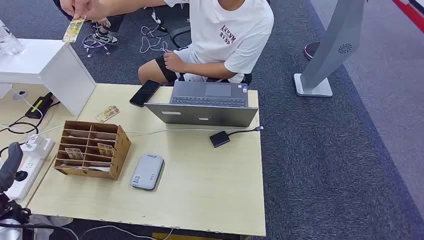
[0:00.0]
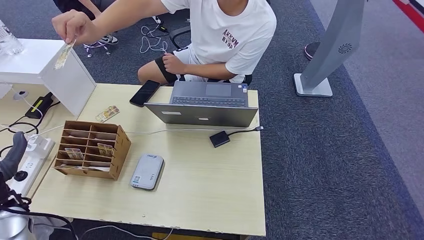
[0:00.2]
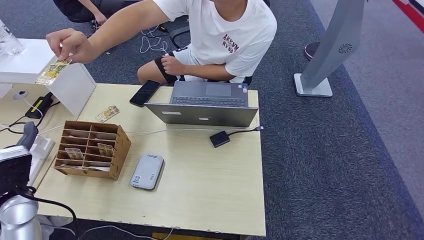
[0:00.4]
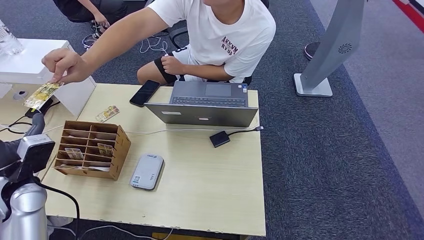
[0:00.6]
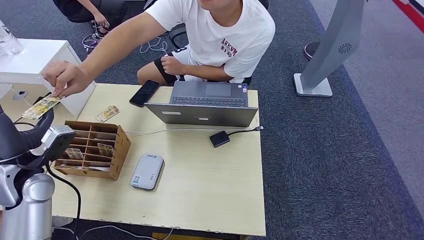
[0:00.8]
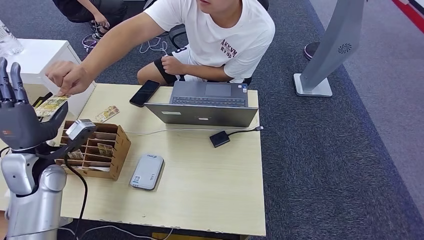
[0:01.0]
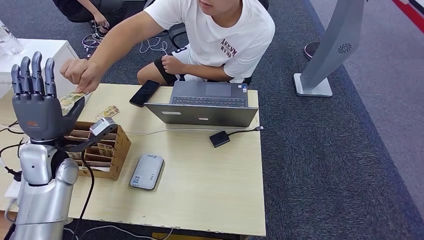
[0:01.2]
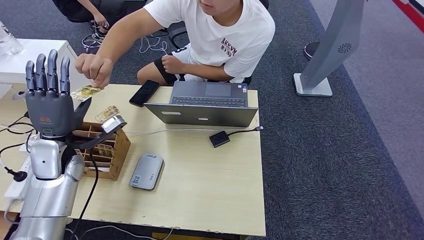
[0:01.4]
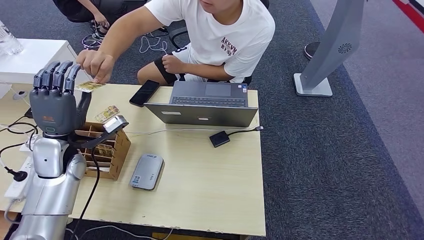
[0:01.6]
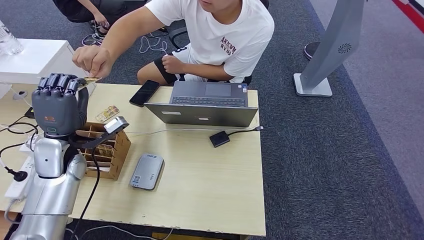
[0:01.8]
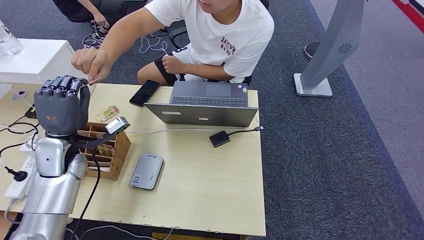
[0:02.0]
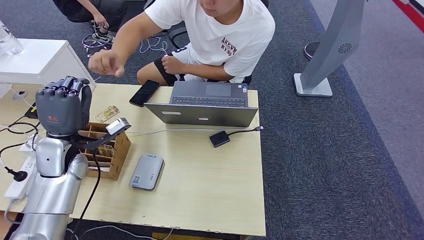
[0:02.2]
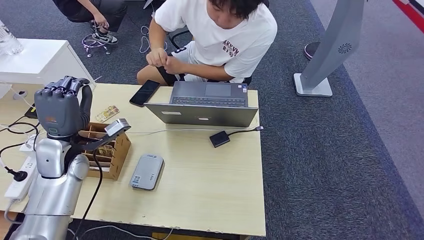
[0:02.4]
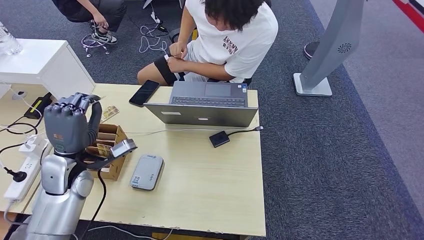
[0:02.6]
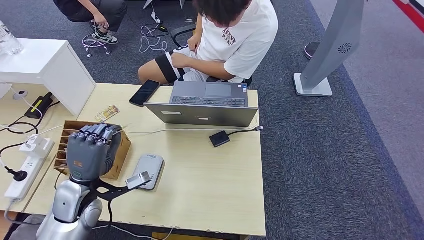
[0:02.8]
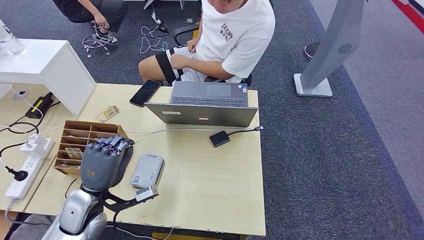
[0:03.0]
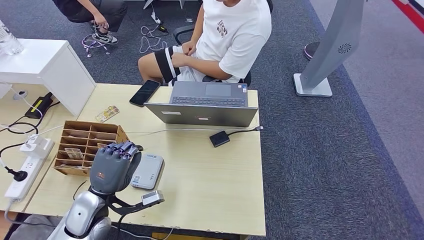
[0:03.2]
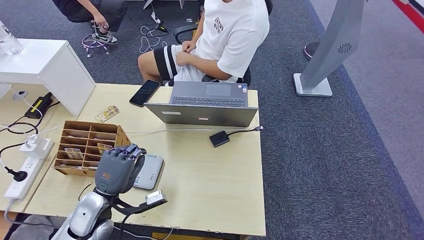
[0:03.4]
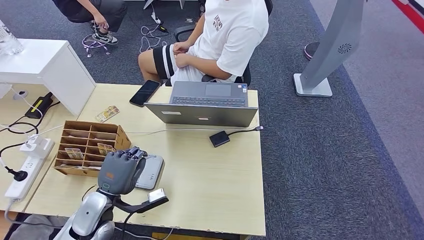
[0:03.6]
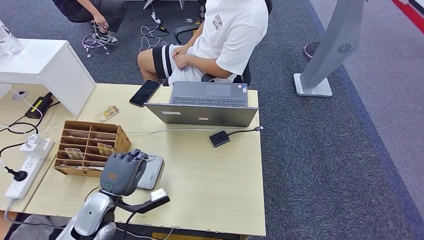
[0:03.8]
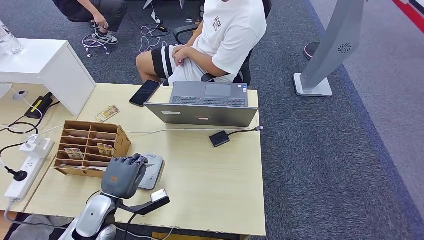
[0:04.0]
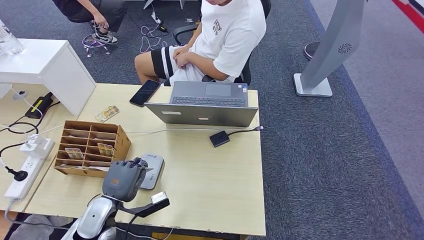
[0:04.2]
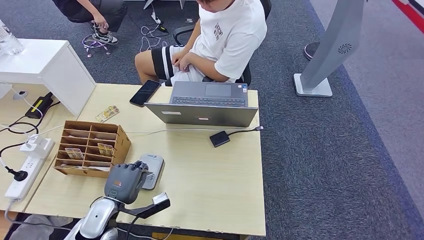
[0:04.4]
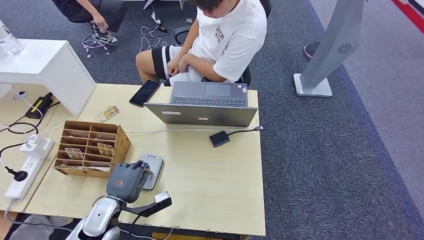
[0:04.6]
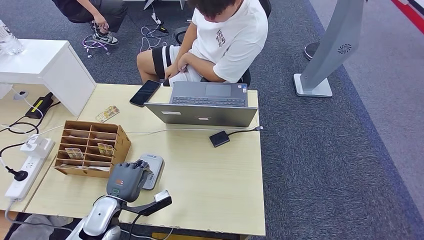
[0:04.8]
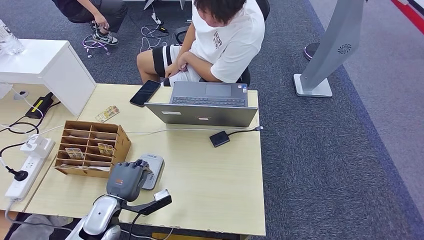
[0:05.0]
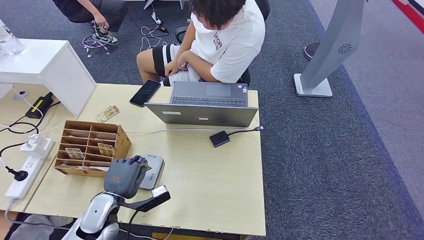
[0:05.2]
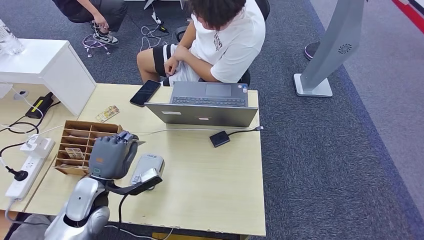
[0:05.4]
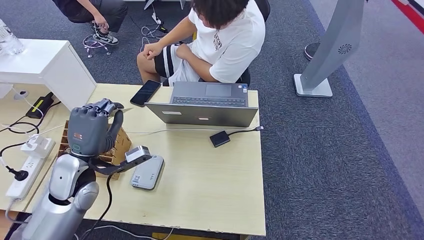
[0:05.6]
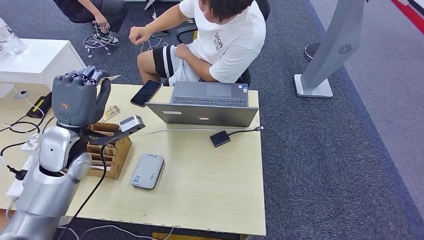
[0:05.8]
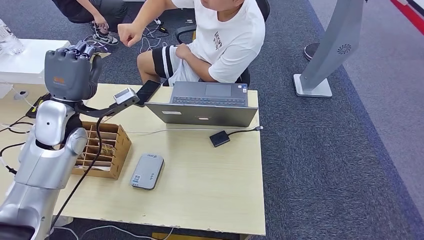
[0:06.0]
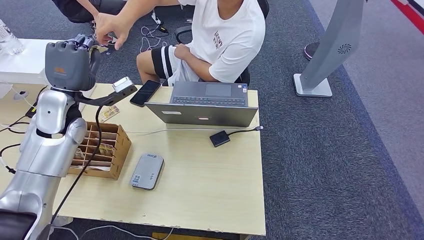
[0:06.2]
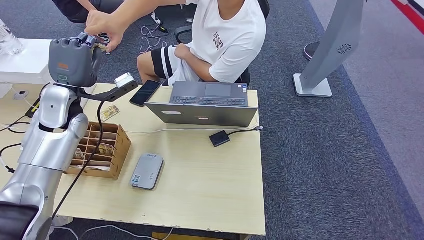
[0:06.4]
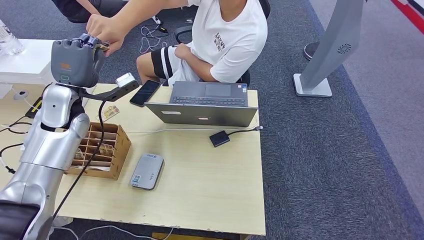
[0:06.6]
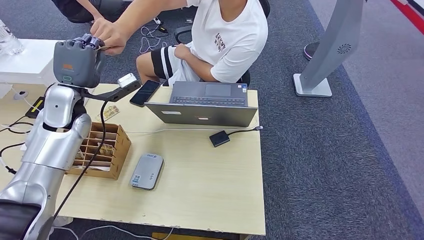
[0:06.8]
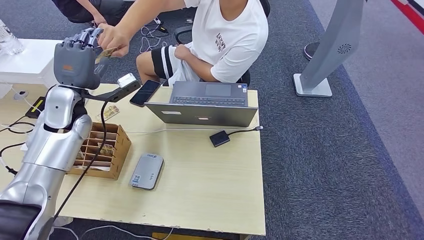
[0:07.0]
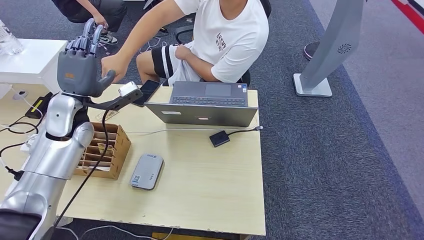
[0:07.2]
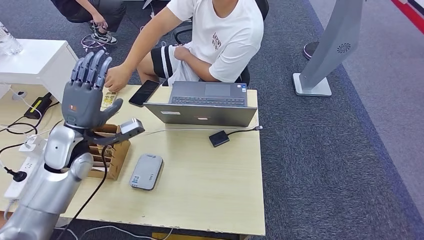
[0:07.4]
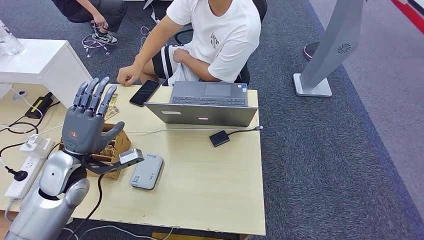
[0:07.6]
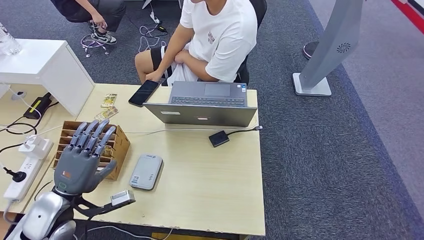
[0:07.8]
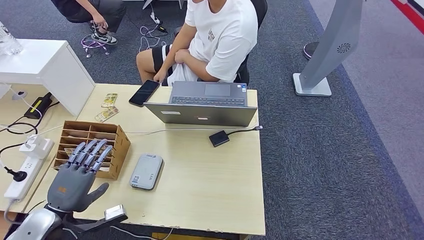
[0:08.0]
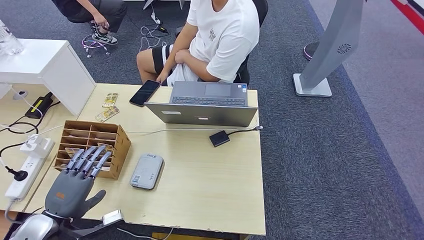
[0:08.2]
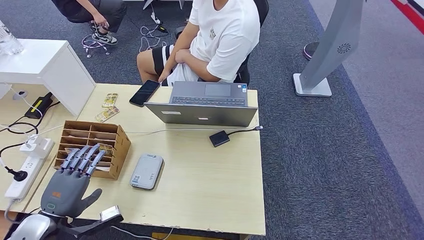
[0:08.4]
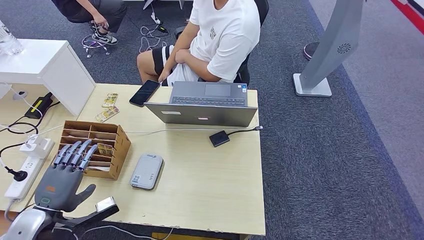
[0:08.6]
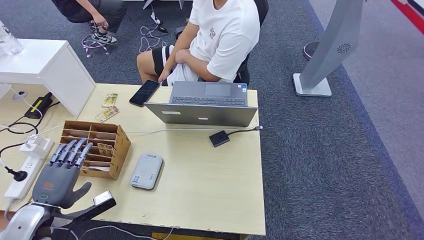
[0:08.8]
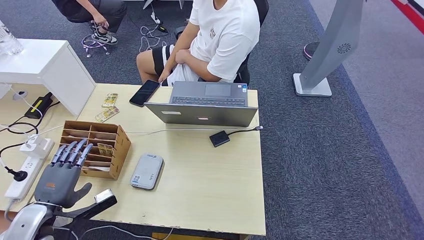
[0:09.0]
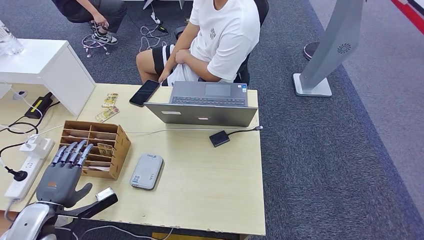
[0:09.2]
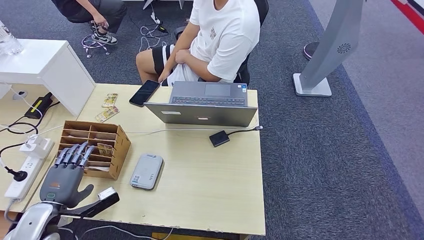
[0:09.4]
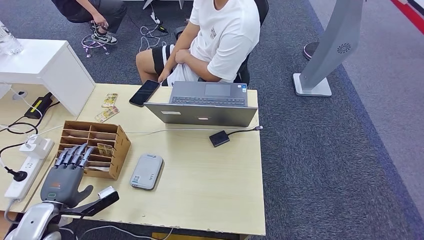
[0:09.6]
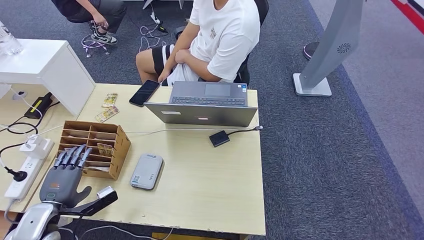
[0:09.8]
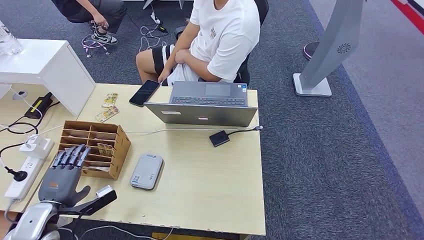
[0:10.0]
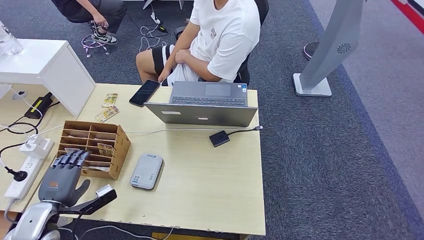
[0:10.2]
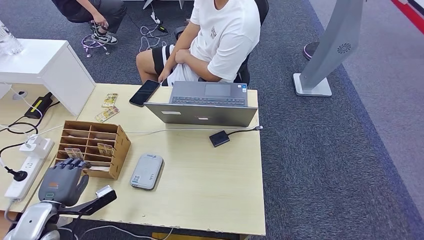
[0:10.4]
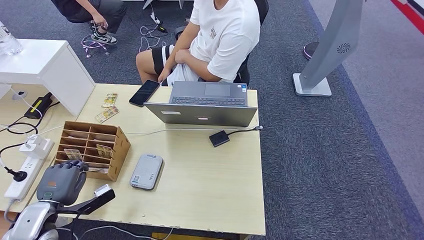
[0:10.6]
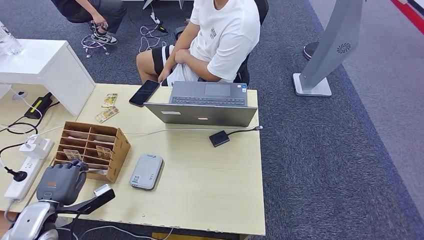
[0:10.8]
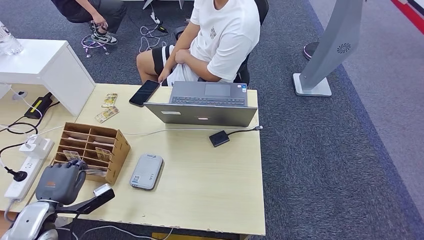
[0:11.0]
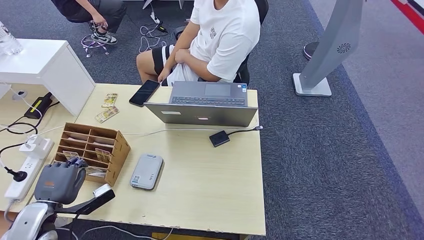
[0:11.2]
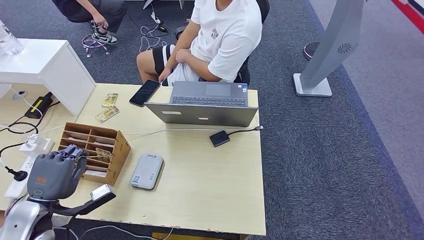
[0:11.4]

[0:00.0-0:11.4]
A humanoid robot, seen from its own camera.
Step, 0:00.0 to 0:03.0: Take the ID card from the person's hand.
Step, 0:03.2 to 0:05.0: Place the ID card on the card reader.
Step, 0:05.2 to 0:07.2: Hand the ID card to the person.
0:02.8 to 0:04.2: The left hand travels downward by approximately 10 cm.
0:04.2 to 0:05.6: The left hand goes about 15 cm upward and forward.
0:05.6 to 0:07.2: The left hand travels forward and upward by about 15 cm.
0:07.2 to 0:08.6: The left hand goes roughly 25 cm backward and downward.
0:08.6 to 0:10.0: The left hand moves approximately 5 cm.
0:10.0 to 0:11.4: The left hand goes approximately 5 cm upward.

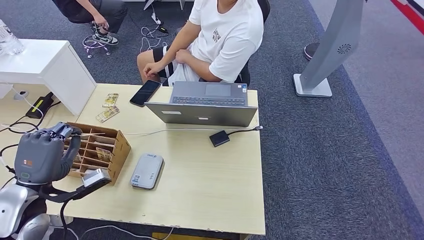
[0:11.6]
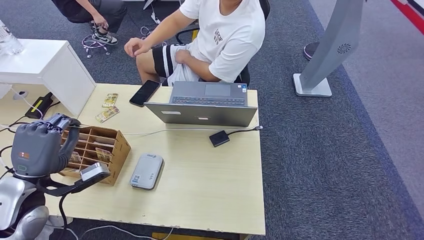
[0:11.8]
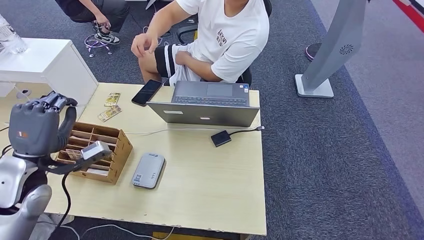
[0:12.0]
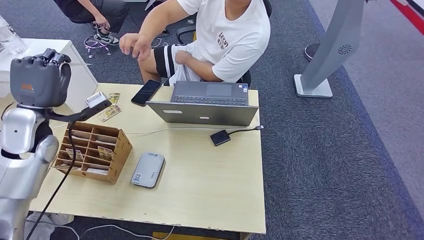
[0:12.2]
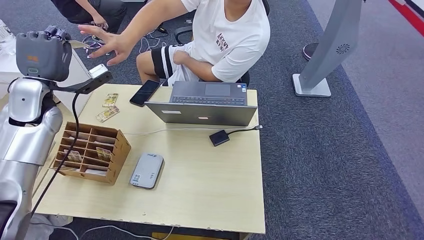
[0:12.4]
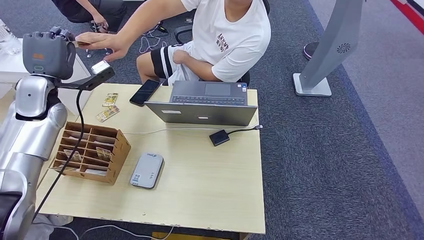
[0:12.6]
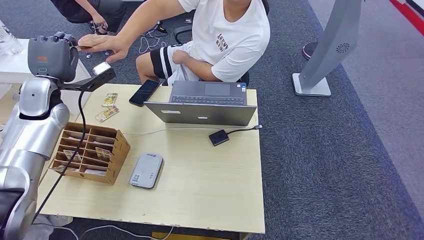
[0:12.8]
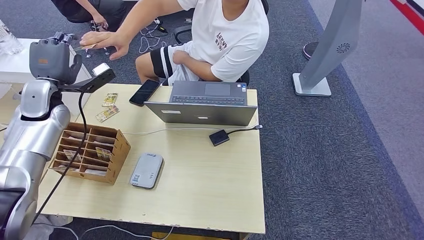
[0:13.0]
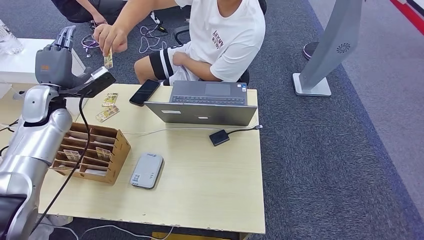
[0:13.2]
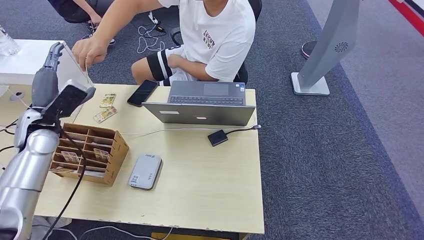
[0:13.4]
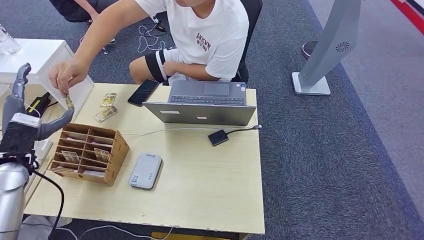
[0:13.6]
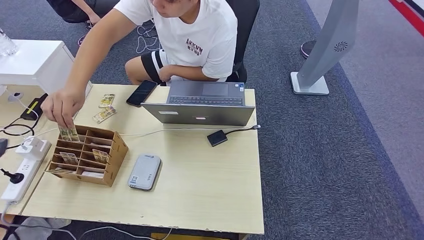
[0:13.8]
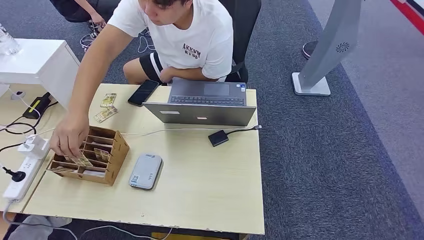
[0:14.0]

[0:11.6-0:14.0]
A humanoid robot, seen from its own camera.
Step, 0:11.6 to 0:13.8: Hand the room key to the person.

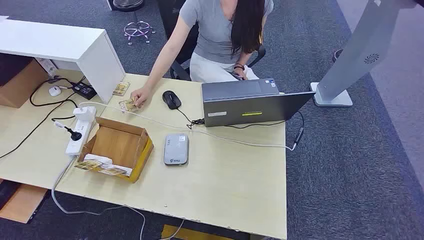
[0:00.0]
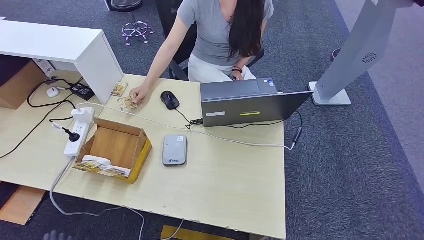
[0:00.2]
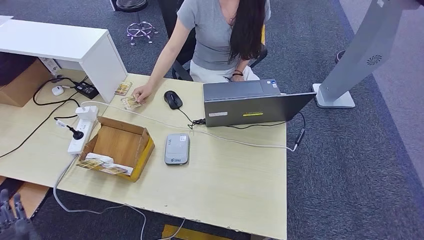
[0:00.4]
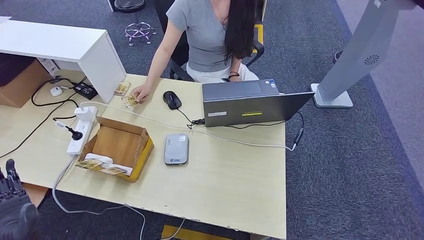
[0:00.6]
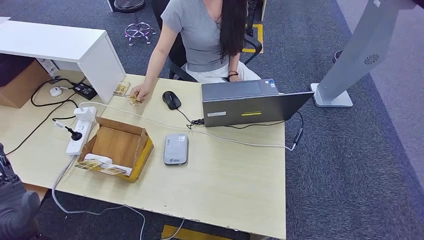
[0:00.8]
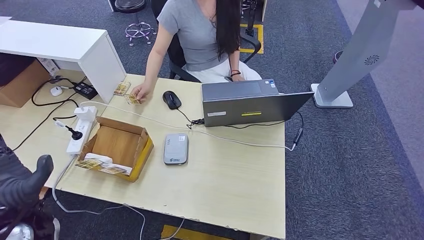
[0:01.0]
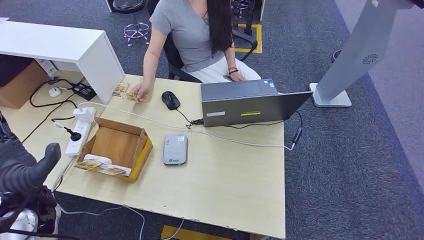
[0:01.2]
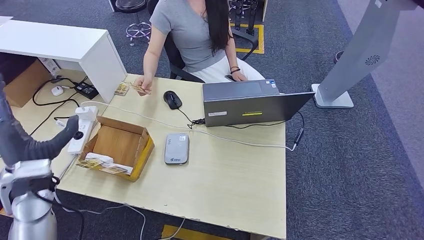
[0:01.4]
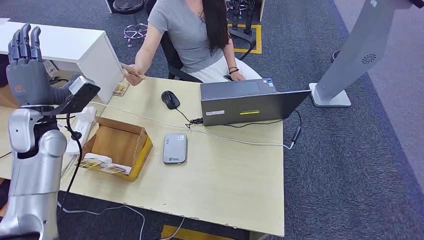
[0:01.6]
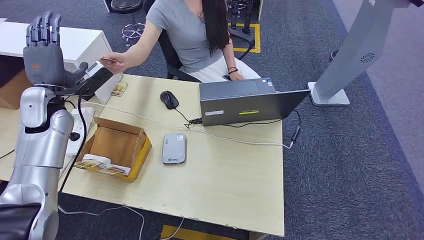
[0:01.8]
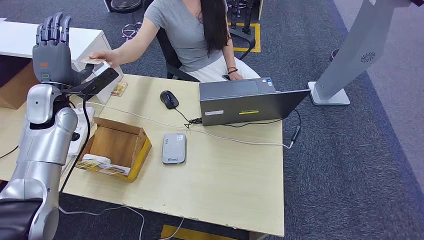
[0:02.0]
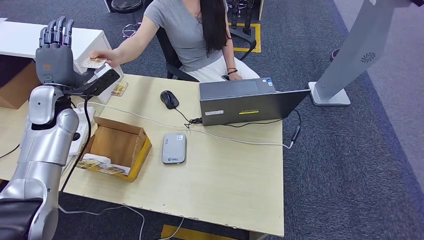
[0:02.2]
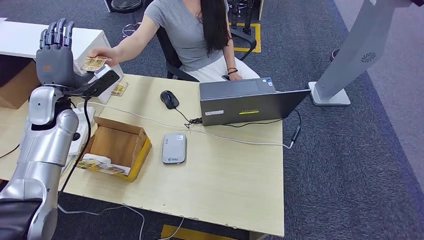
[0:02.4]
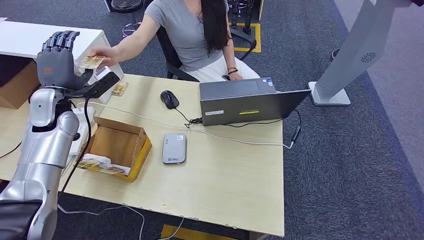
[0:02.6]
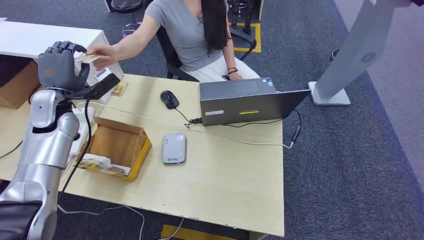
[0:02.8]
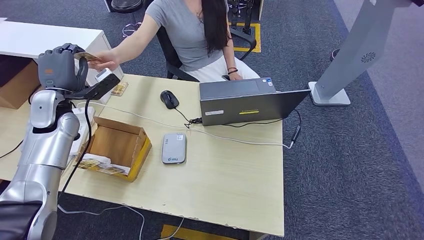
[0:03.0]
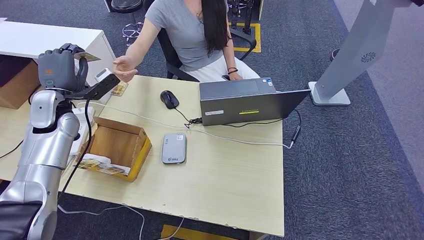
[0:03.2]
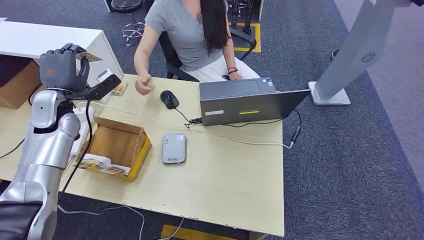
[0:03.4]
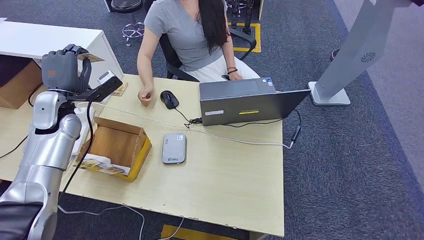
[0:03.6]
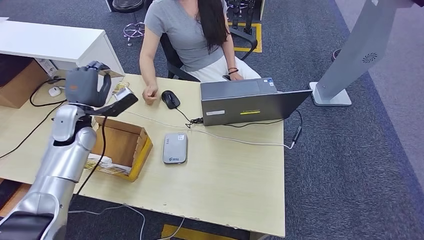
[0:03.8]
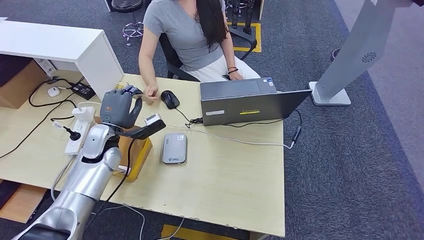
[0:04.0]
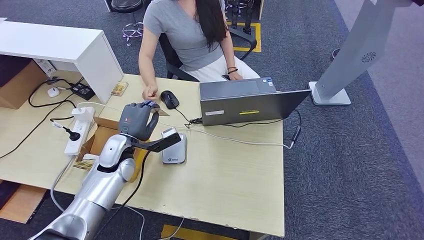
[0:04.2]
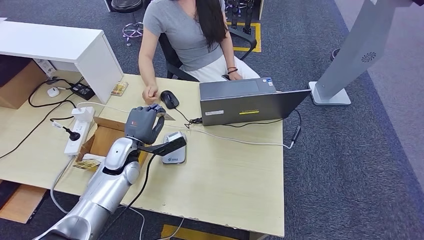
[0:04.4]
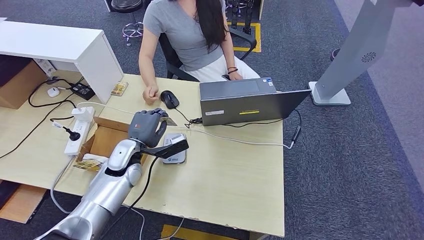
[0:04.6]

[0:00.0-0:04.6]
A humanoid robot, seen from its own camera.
Step, 0:00.0 to 0:02.8: Take the ID card from the person's hand.
0:01.6 to 0:03.0: The left hand moves forward, some 5 cm.
0:03.0 to 0:04.6: The left hand moves to the right and downward, approximately 20 cm.
